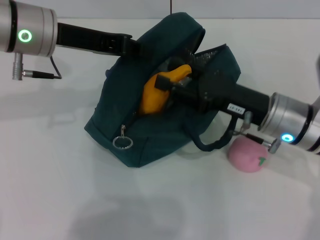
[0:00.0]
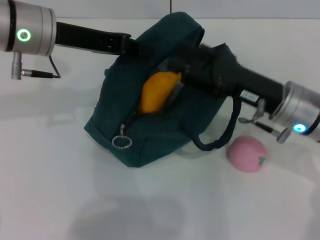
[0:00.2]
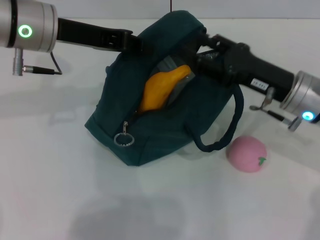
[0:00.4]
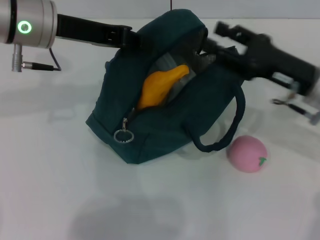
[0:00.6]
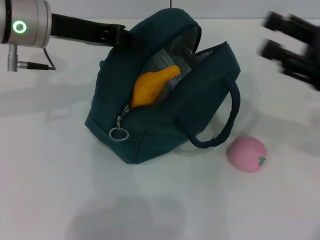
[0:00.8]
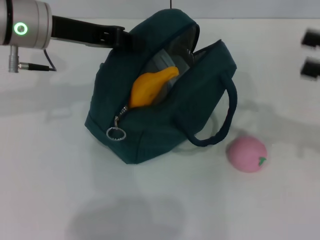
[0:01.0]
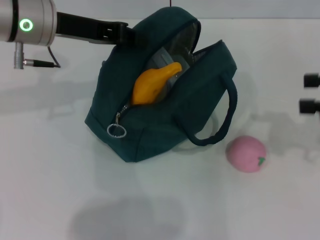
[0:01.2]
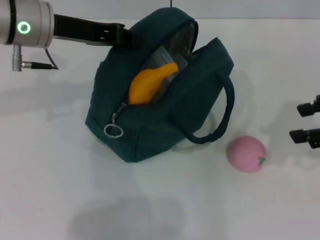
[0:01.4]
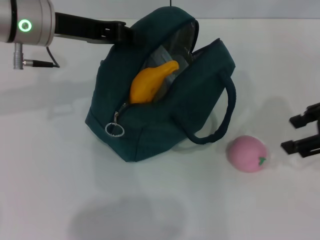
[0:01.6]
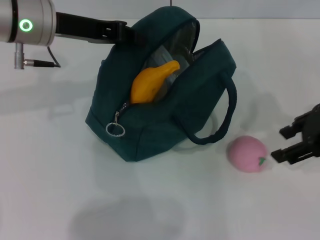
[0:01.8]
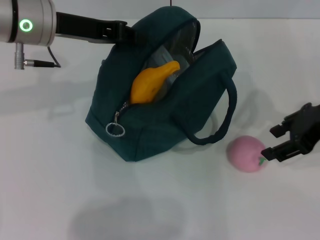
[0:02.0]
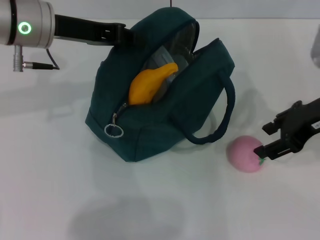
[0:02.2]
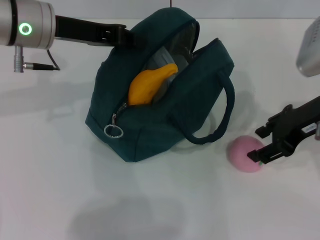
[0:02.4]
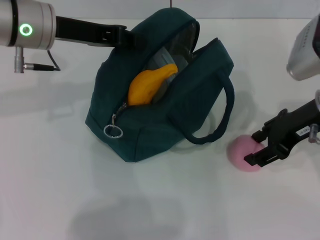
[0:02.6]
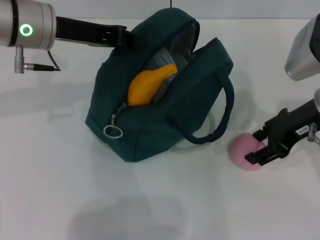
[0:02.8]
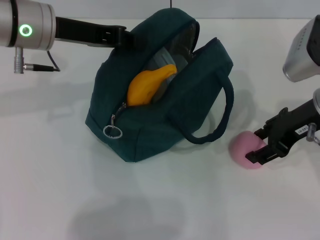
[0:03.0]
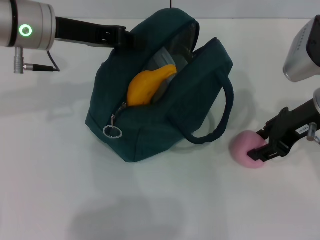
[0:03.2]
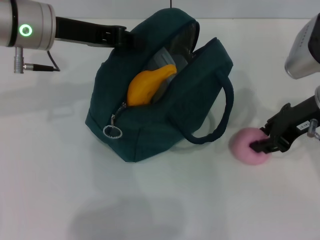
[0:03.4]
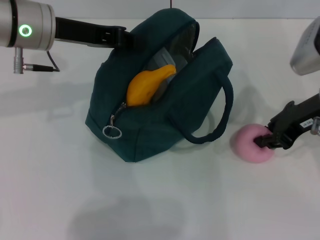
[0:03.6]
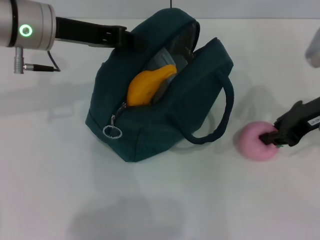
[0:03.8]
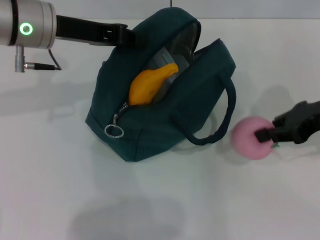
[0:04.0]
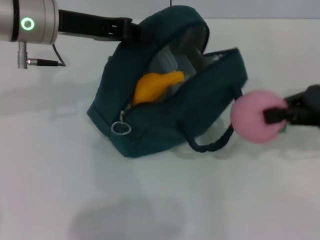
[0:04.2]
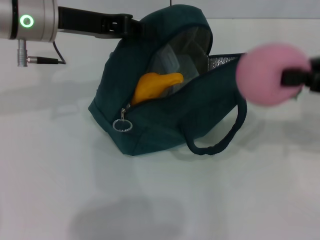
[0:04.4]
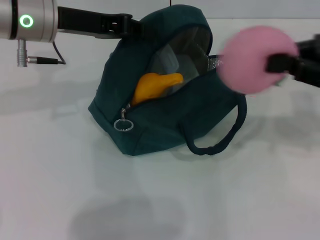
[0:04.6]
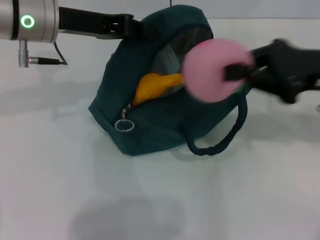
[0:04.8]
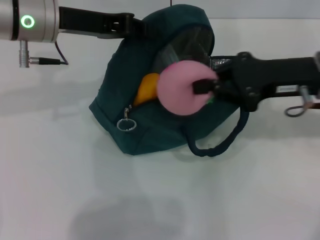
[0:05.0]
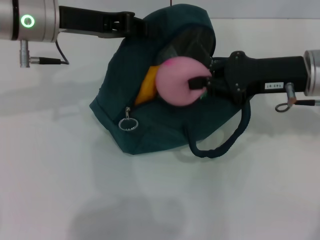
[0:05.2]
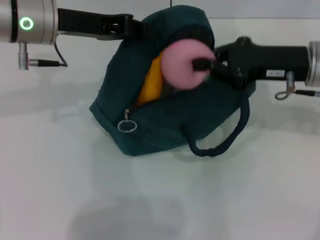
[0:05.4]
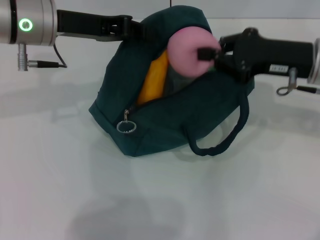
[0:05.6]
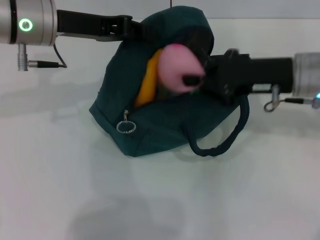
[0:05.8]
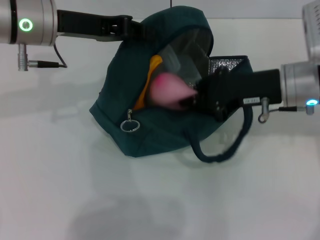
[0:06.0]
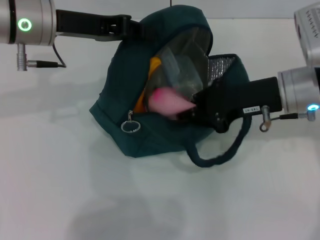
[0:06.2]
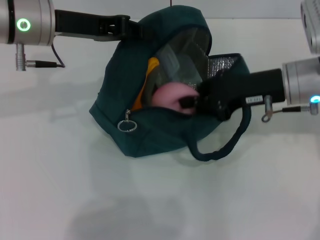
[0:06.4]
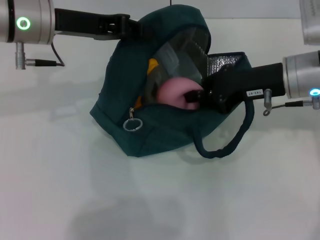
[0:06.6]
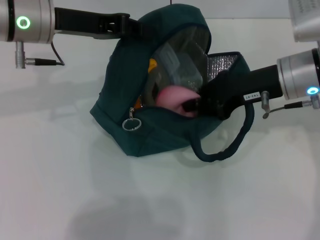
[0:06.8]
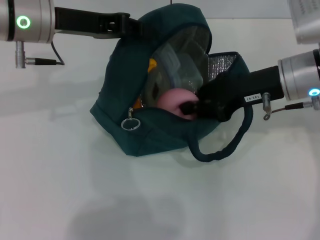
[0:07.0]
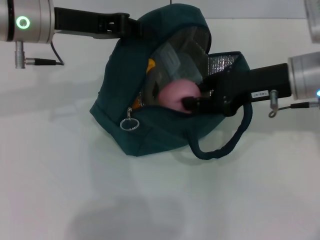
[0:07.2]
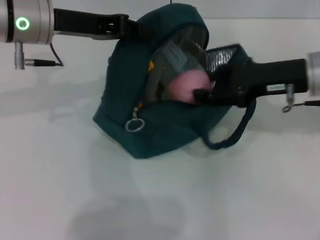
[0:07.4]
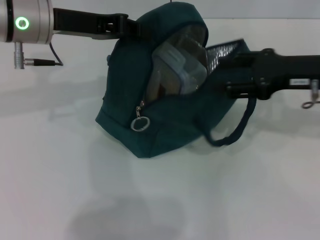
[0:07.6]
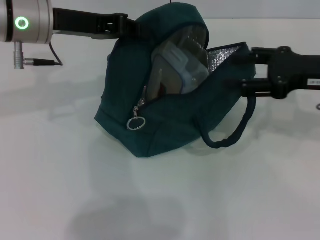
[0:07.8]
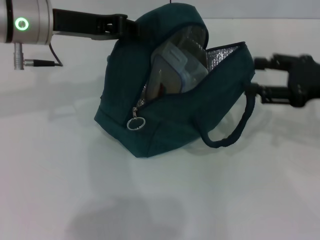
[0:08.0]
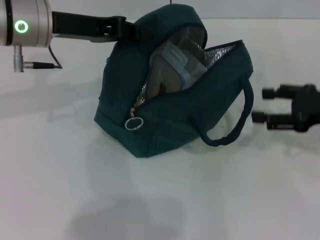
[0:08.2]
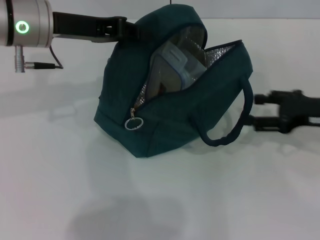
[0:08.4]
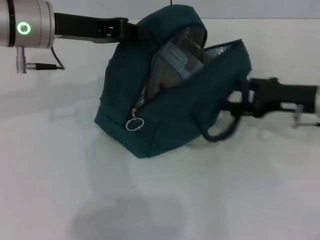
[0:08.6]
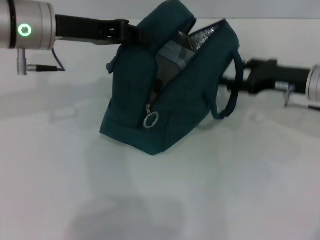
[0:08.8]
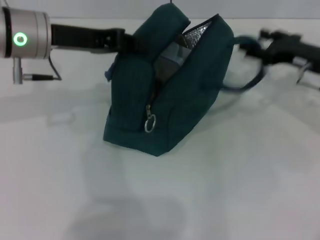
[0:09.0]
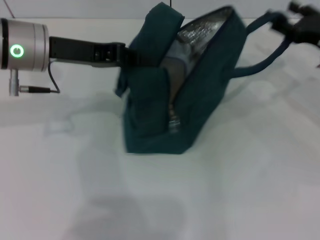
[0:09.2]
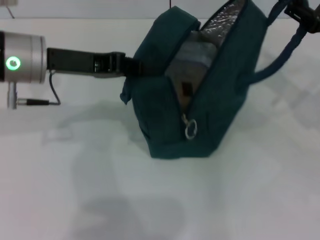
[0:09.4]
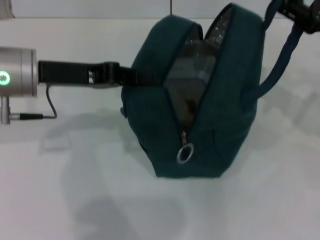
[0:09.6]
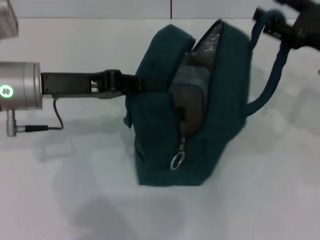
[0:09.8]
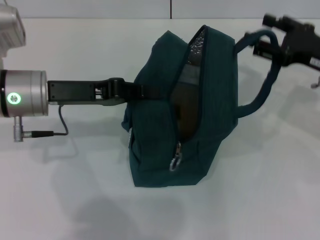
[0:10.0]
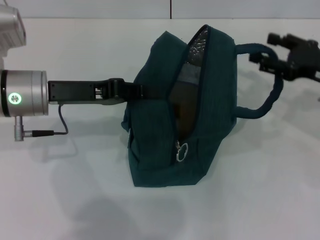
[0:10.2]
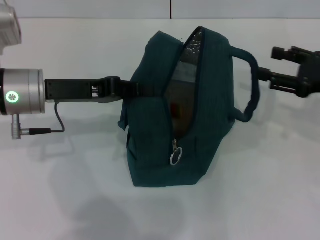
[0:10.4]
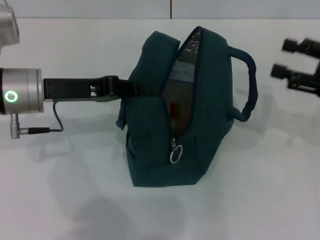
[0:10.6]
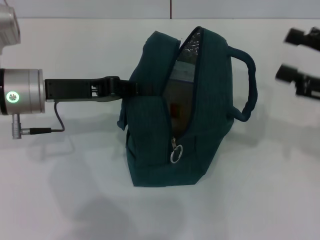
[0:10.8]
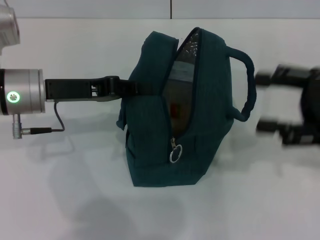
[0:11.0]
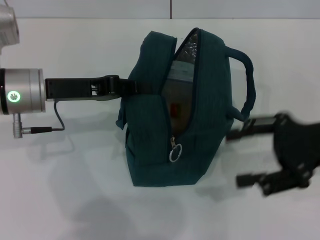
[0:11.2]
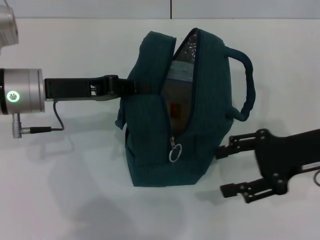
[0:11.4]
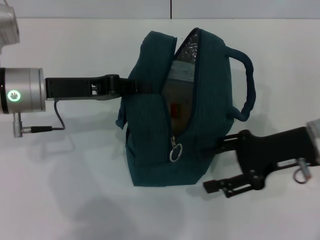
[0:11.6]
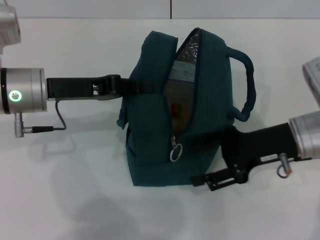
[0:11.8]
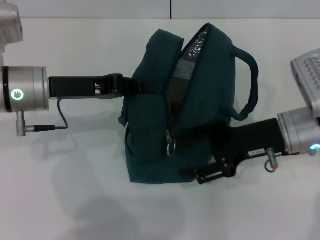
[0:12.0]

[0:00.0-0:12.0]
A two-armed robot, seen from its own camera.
Step, 0:00.4 to 0:03.6: Grab the peach with your right hand.
Step, 0:07.6 to 0:10.2: Hold the lunch bag with your right hand.
0:00.0 to 0:01.6: The right gripper shifts roughly 15 cm upward and to the right.
0:01.6 to 0:03.0: The right gripper travels to the left and downward by approximately 10 cm.
0:03.0 to 0:04.4: The right gripper shifts approximately 10 cm to the right, and closes.
0:04.4 to 0:06.0: The right gripper is displaced to the left and downward by approximately 15 cm.
0:06.0 to 0:07.6: The right gripper heads to the right, covering approximately 5 cm, and opens its fingers.
0:07.6 to 0:09.0: The right gripper heads downward, covering roughly 5 cm.
0:09.0 to 0:10.4: The right gripper heads backward, covering some 5 cm; the left gripper travels downward by roughly 5 cm.
0:10.4 to 0:12.0: The right gripper travels to the left by approximately 10 cm.

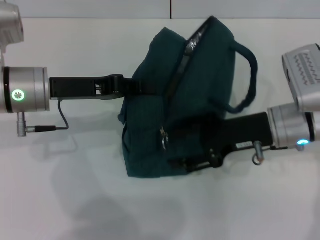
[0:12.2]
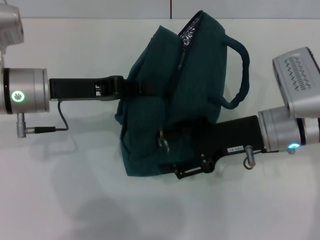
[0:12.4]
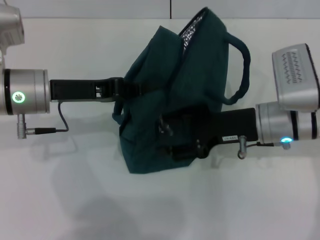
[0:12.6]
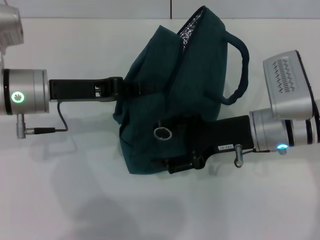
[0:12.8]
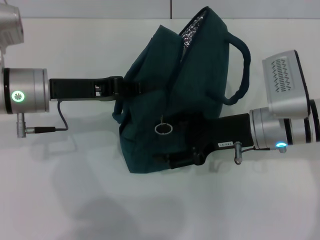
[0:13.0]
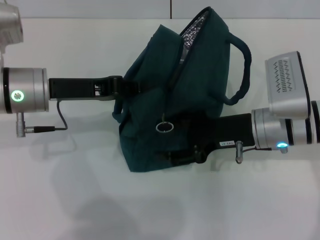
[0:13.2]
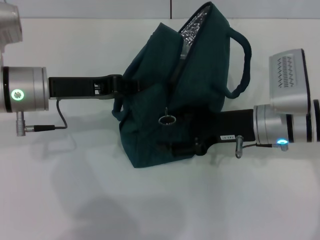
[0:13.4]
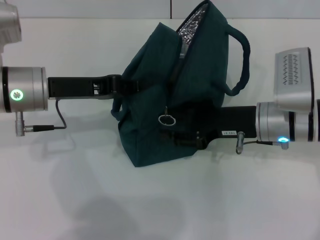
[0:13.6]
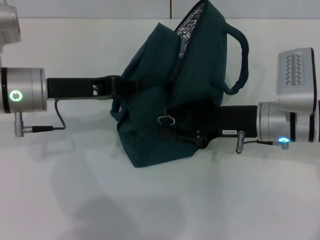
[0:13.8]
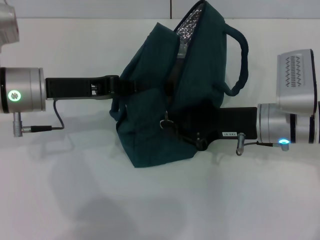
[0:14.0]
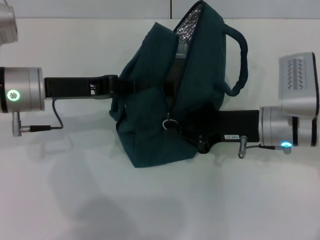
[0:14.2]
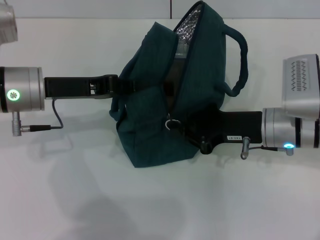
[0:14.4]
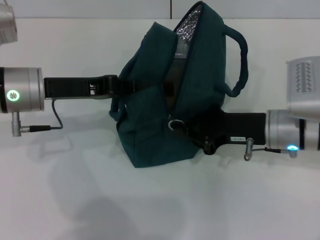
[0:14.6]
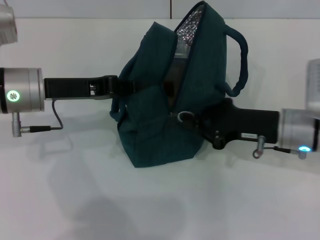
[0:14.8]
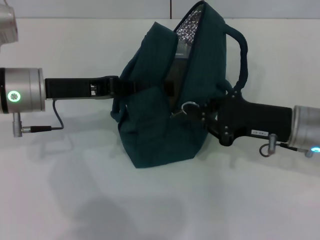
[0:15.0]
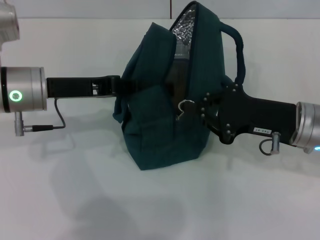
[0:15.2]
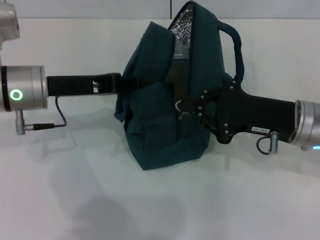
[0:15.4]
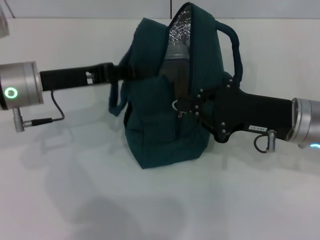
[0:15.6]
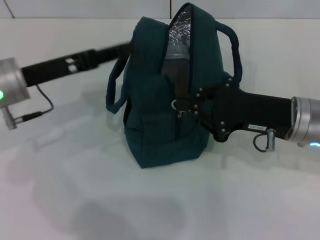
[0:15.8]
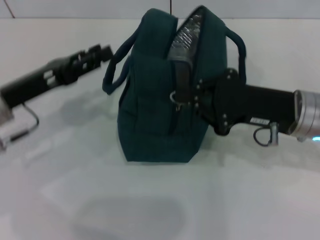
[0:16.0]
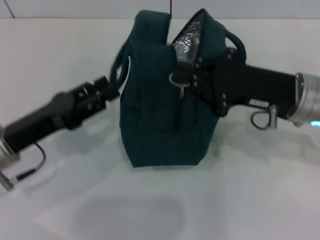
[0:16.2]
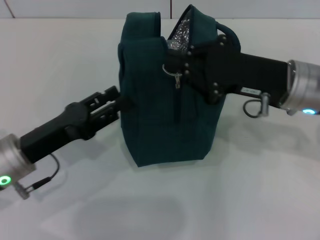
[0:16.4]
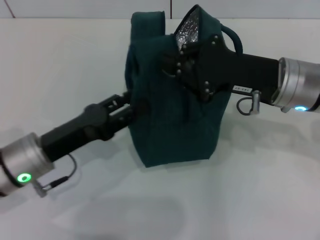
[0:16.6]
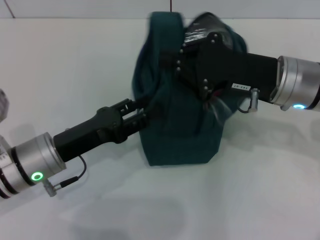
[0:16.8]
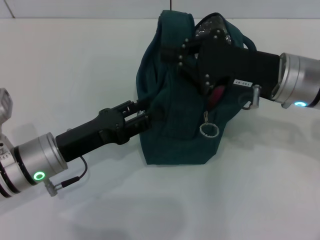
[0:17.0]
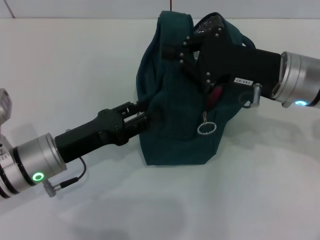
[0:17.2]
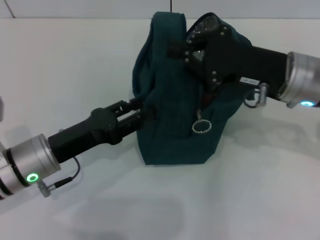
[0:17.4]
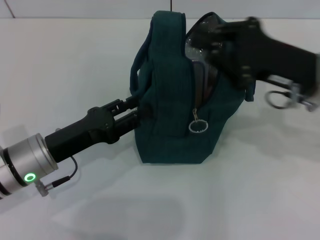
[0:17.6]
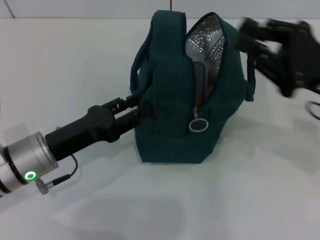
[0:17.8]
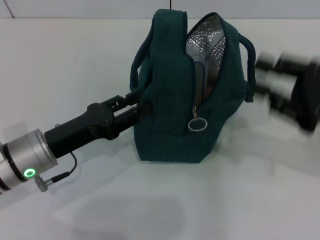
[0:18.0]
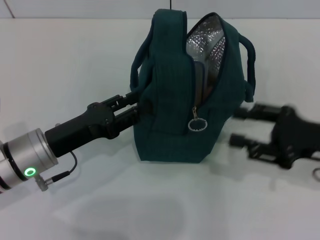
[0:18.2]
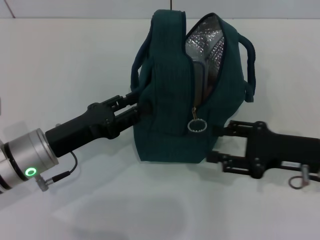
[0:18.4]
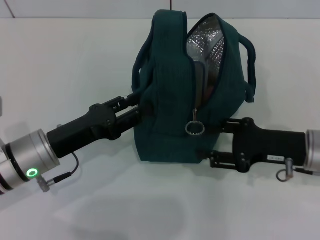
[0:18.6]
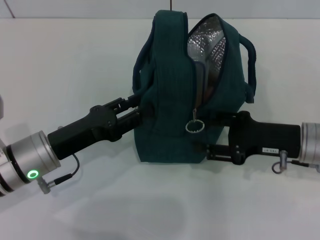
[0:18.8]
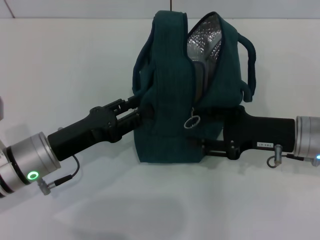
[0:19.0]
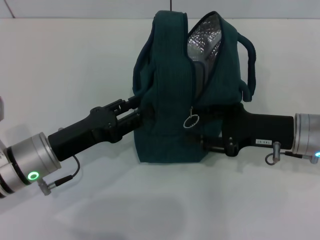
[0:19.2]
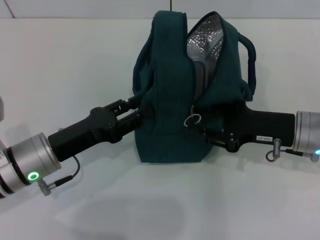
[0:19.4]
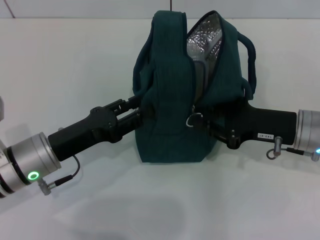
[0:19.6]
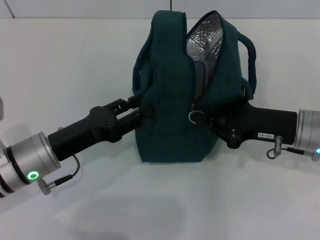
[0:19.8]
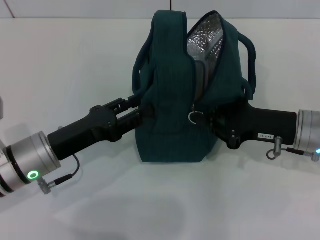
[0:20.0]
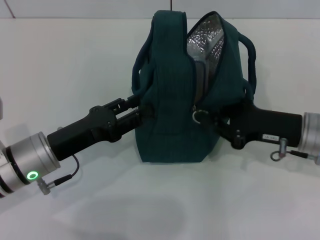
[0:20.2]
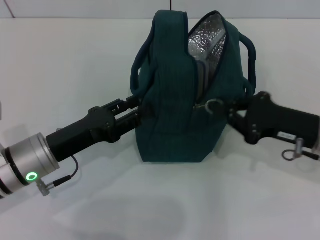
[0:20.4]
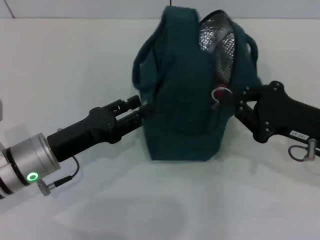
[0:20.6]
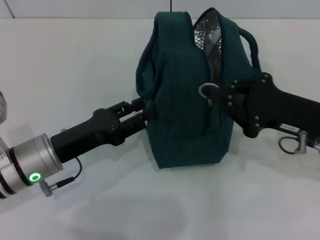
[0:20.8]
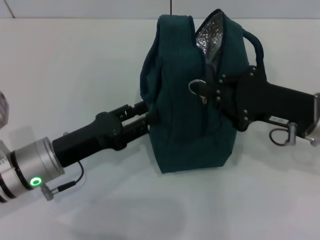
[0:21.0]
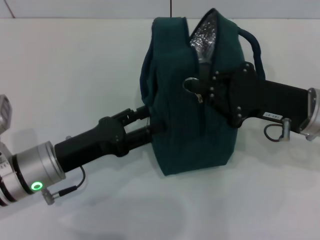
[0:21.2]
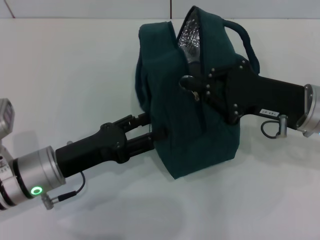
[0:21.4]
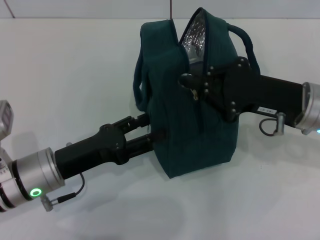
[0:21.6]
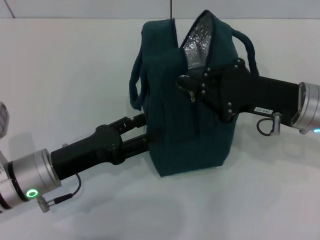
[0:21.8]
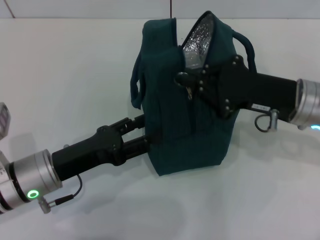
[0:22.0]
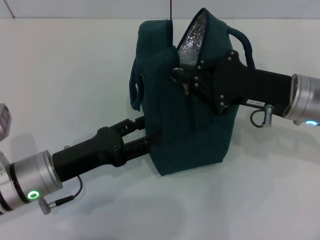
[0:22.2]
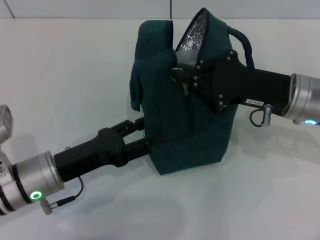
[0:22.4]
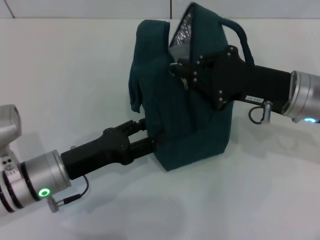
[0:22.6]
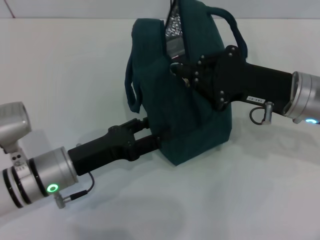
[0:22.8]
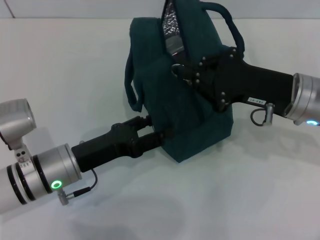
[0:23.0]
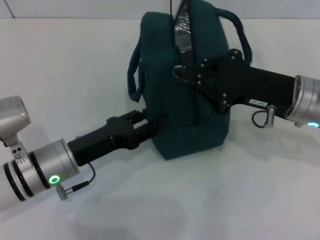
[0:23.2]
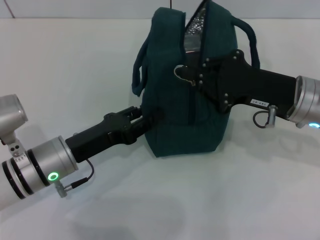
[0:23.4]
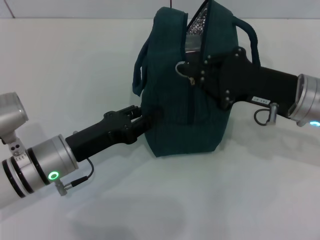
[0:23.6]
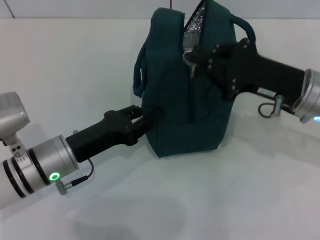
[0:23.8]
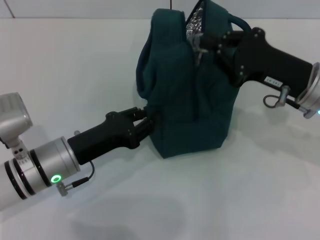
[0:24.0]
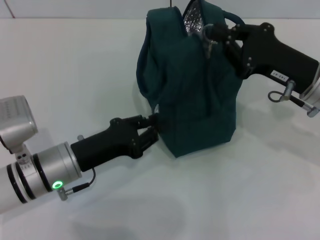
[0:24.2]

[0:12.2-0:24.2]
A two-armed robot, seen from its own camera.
Step, 0:12.2 to 0:15.6: Hold the lunch bag with your left hand.
0:12.2 to 0:13.8: The grippers make only small movements.
0:13.8 to 0:15.2: The right gripper changes place by approximately 5 cm, and closes up.
0:15.2 to 0:16.6: The right gripper ends up some 5 cm from where it was, while the left gripper heads backward and downward, covering some 10 cm, and opens.
0:16.6 to 0:18.2: The right gripper moves to the right, backward and downward, about 15 cm, and opens.
0:18.2 to 0:19.8: The right gripper goes some 5 cm to the left.
0:22.6 to 0:24.2: The left gripper closes its fingers.
